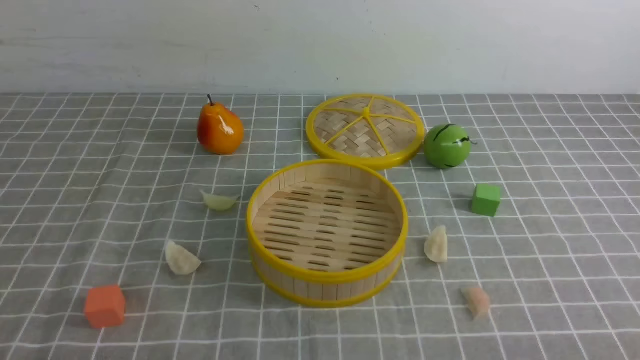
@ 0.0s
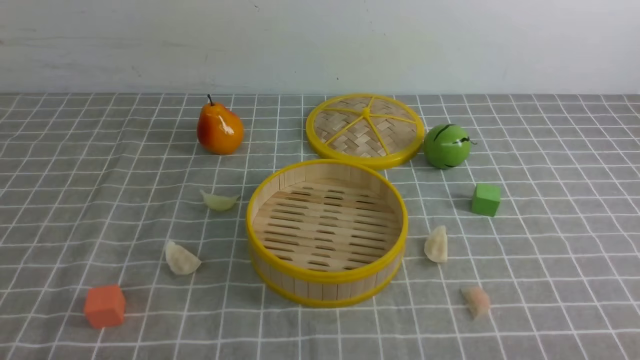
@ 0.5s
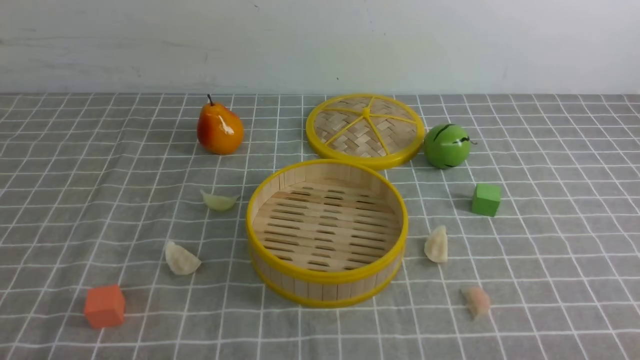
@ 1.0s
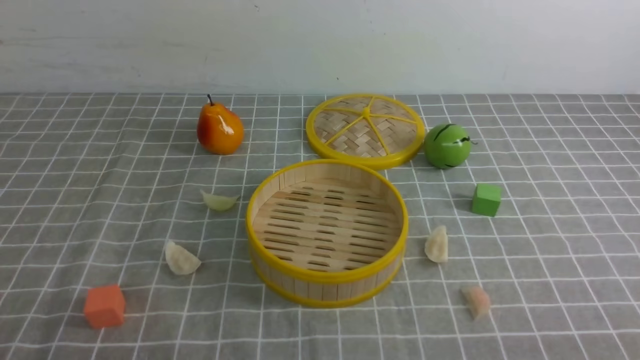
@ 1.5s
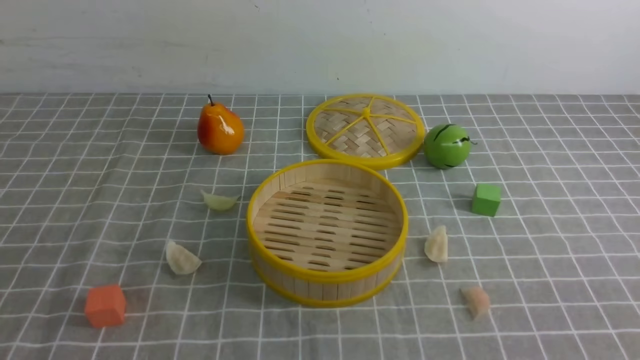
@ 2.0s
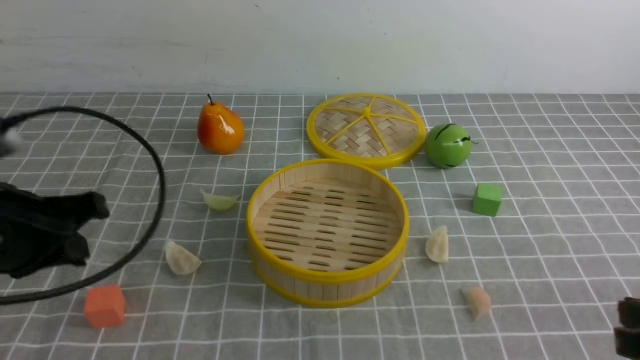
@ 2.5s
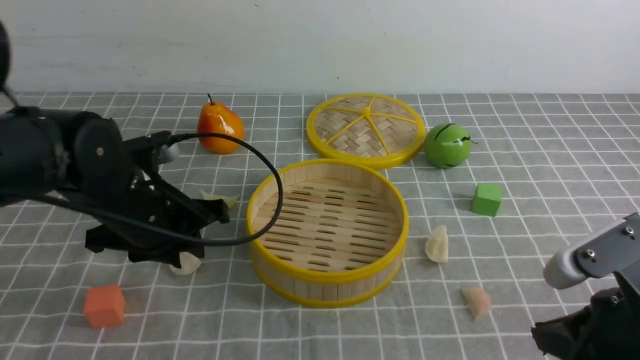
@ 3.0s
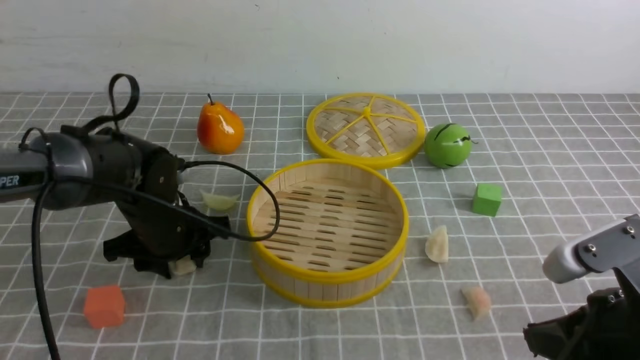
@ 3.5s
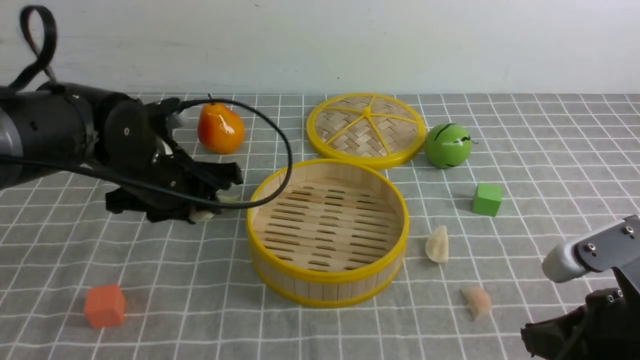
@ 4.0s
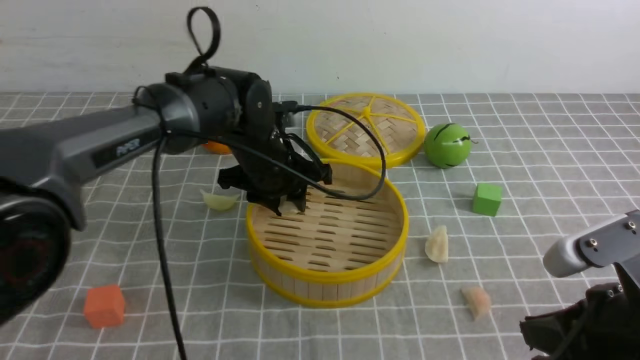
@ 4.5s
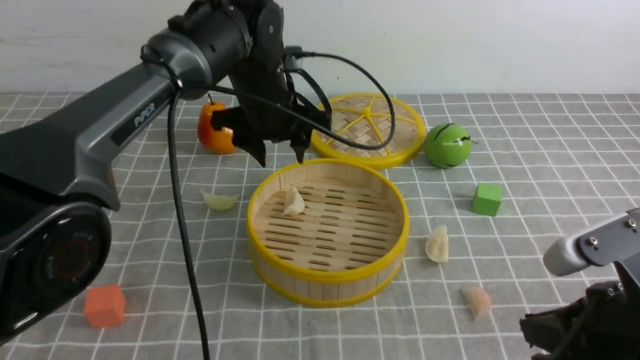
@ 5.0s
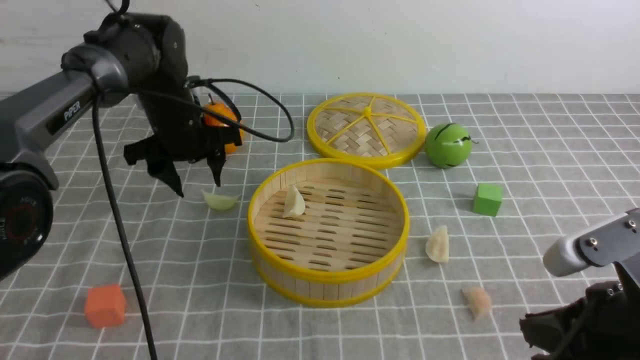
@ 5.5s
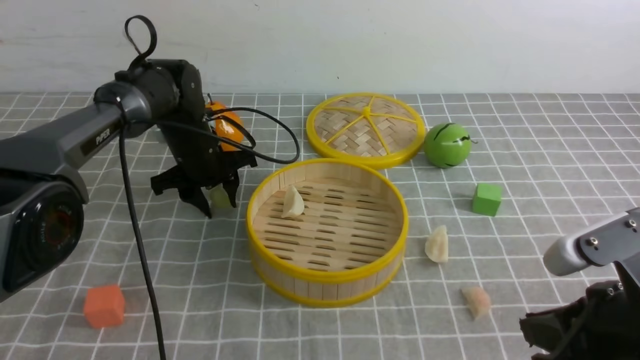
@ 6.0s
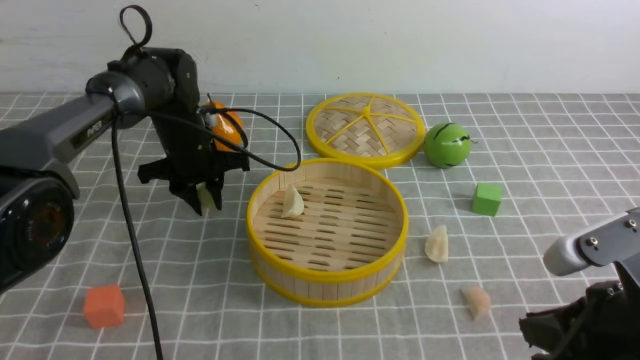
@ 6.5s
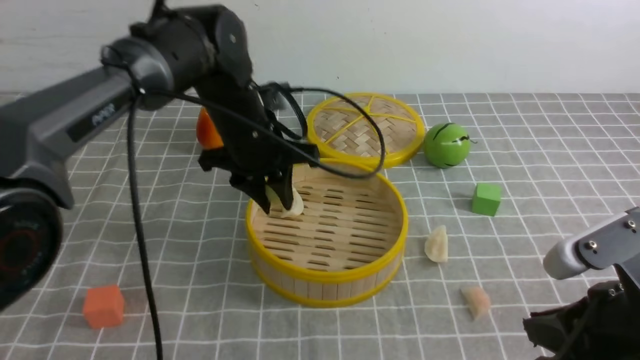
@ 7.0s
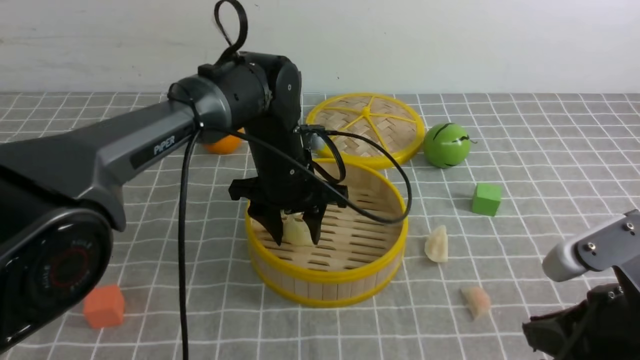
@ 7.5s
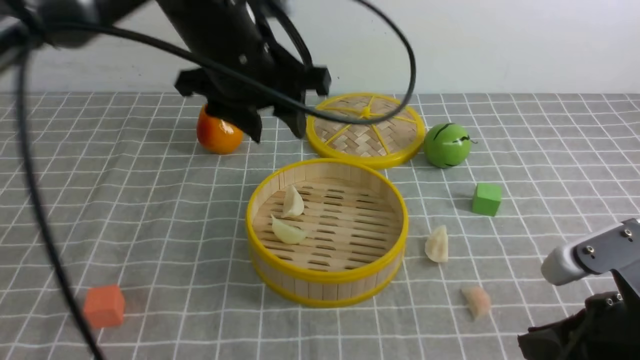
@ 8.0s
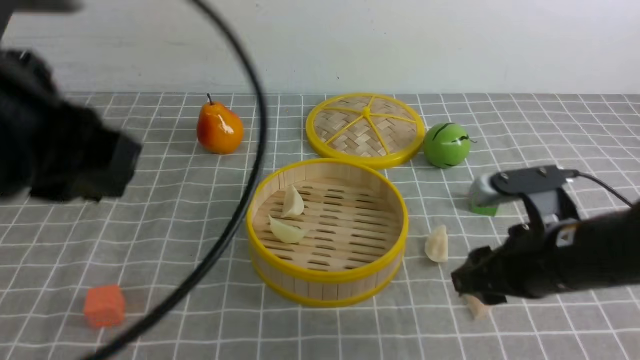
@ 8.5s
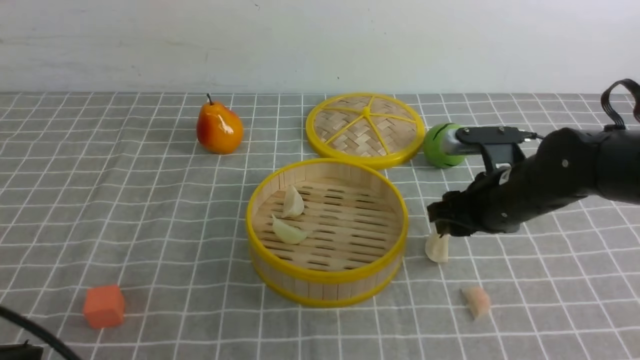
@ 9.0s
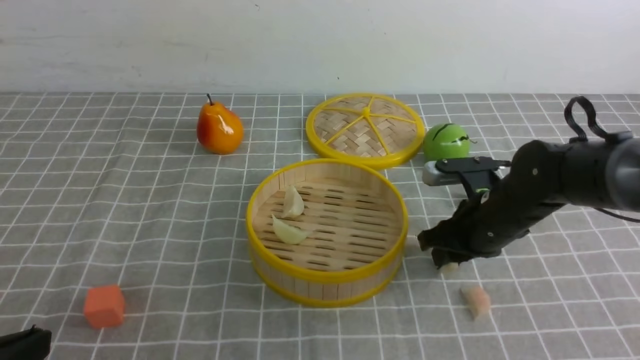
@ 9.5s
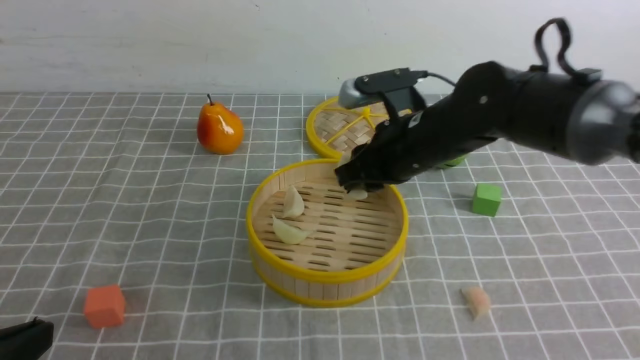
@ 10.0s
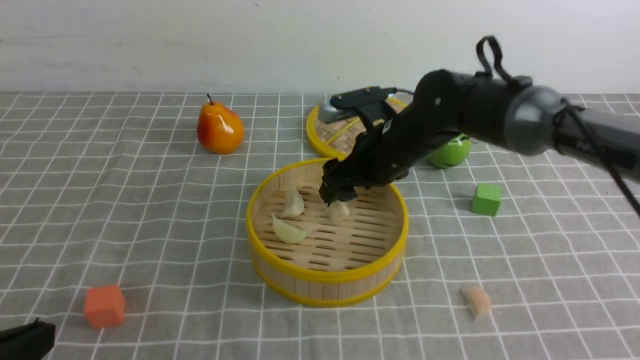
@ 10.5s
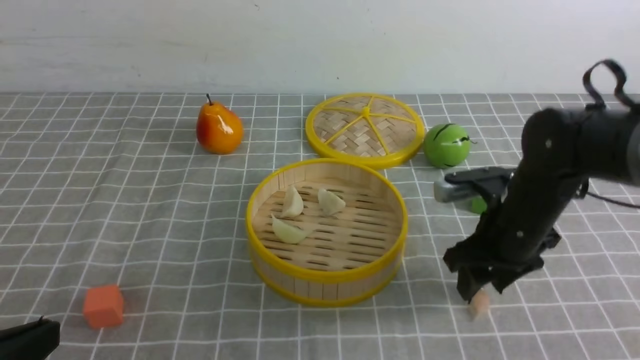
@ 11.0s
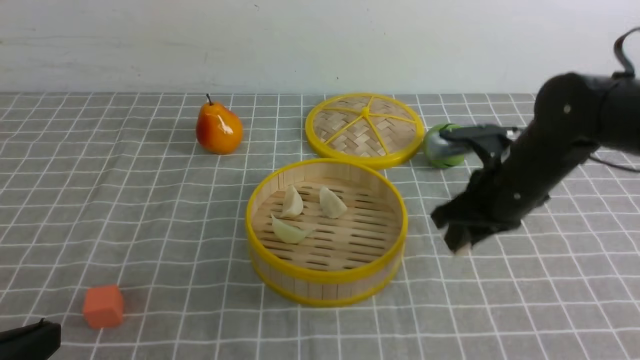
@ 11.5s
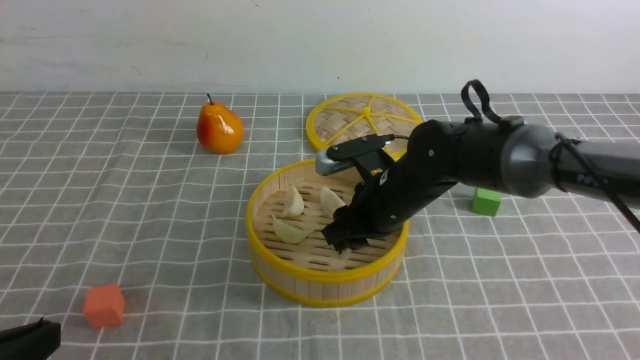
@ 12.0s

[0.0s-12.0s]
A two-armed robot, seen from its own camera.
Task of the whole recording: put the dumplings into the steamer on the table with the grey tablecloth.
Step, 0.0s to 3.5s: use the left arm to grab a dumpling.
Step, 4.0s to 4.5s: use the left arm to put the dumpling into the steamer.
Step, 5.0s to 6.5s: use the left arm to grab a dumpling.
Step, 7.0s to 7.5s: use the left arm to put the dumpling into the steamer.
Step, 8.0s to 9.5s: use the right arm to grab a dumpling.
Step, 10.0s to 10.5s: use the right arm to put the dumpling into the steamer.
2.0s to 4.0s: The right gripper moves forward and to the left, approximately 10 cm; the left gripper heads forward and to the right, covering about 30 cm, and opens up.
4.0s to 6.0s: The left gripper is displaced forward and downward by about 15 cm.
6.0s to 8.0s: The left gripper shifts approximately 25 cm upward and backward.
8.0s to 10.0s: The right gripper shifts approximately 25 cm forward and to the left. The left gripper goes about 35 cm backward, to the left and downward, and closes its fingers.
10.0s to 12.0s: The right gripper goes to the right and returns, about 10 cm each way.

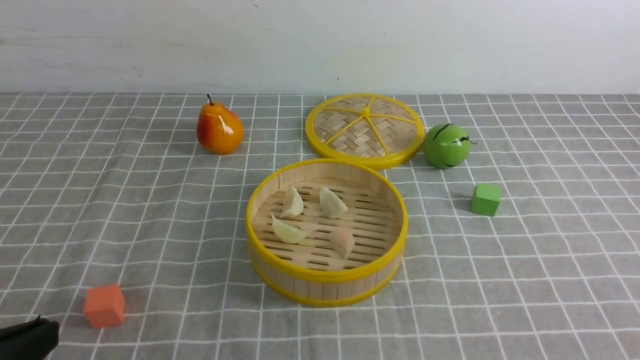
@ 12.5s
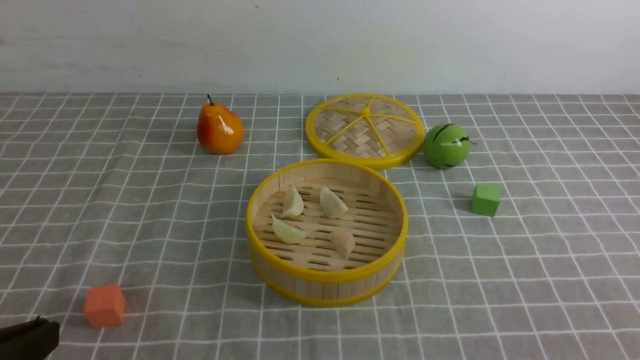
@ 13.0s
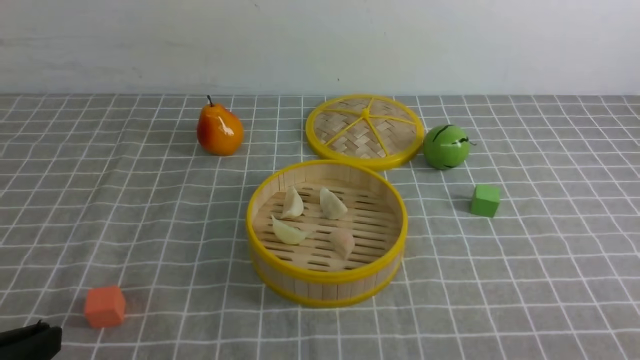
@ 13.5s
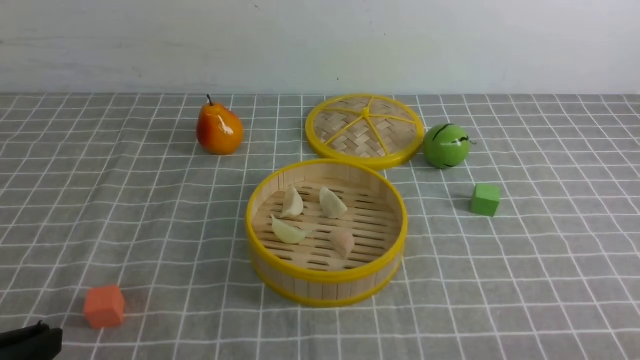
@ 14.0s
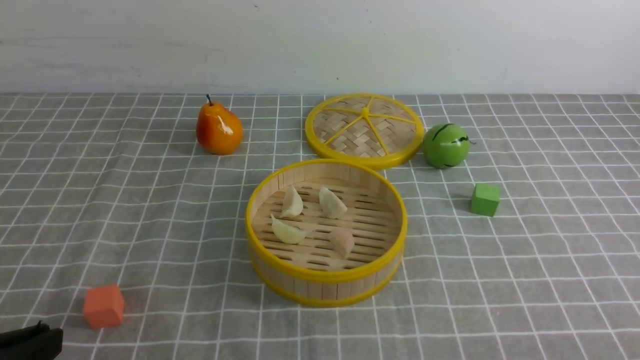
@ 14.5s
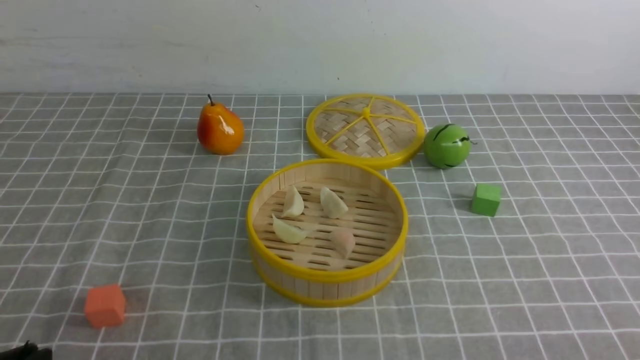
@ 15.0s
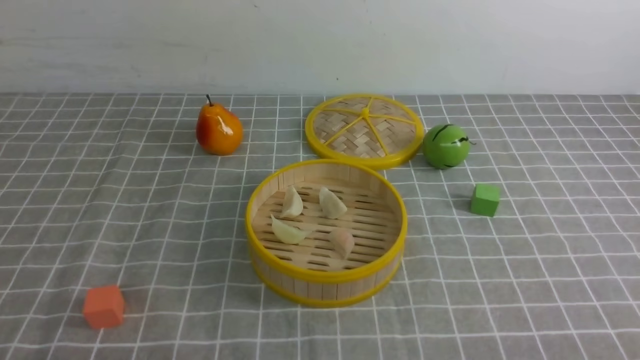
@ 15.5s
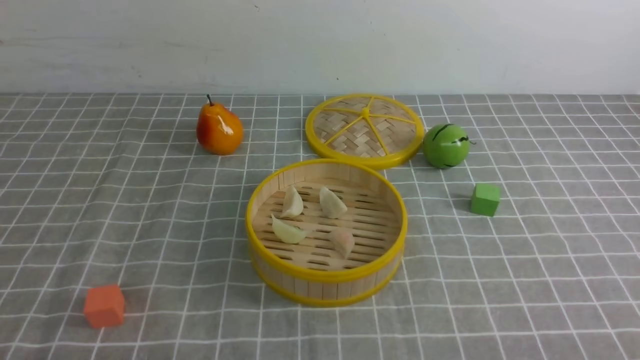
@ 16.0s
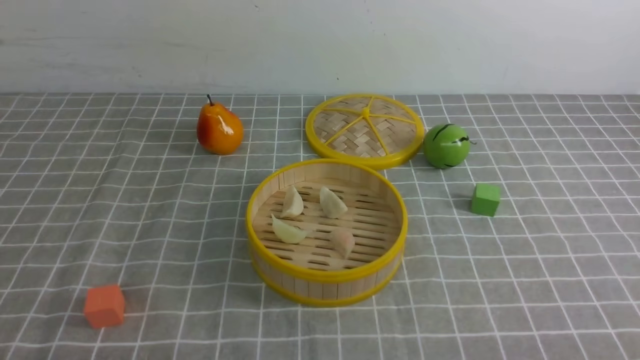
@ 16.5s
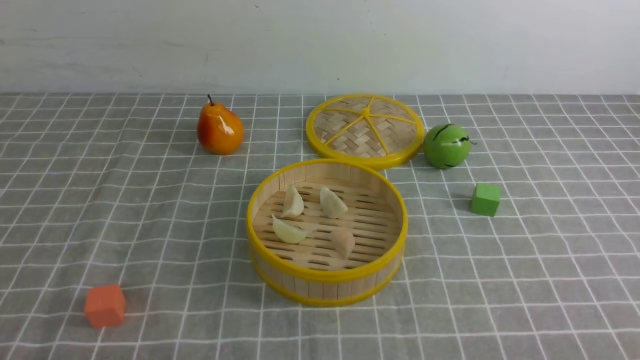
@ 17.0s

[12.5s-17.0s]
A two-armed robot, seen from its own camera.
Task of the whole recording: put the dumplings into the steamer on the table with the grey tablecloth.
14.5s to 17.0s: The left gripper moves downward, some 10 cm.

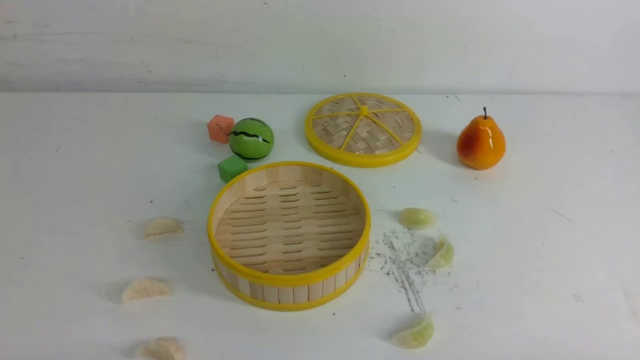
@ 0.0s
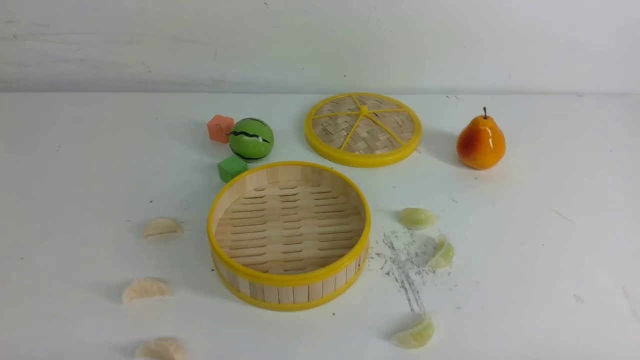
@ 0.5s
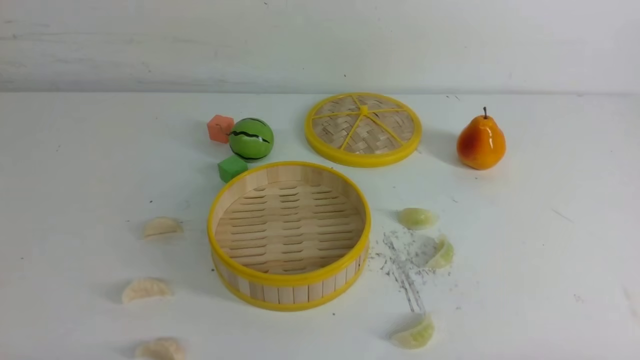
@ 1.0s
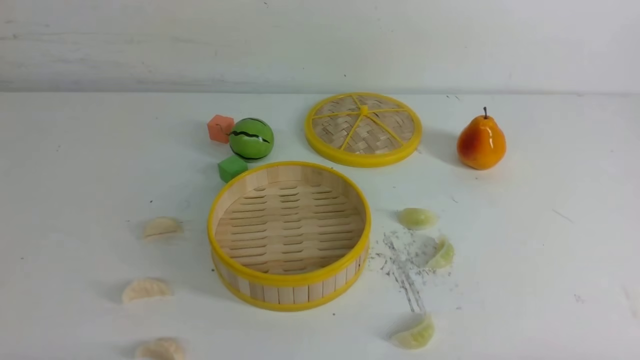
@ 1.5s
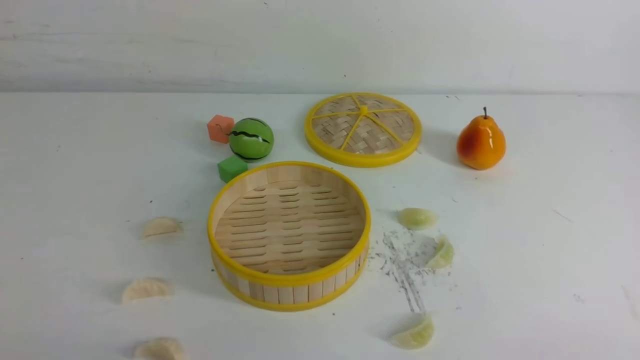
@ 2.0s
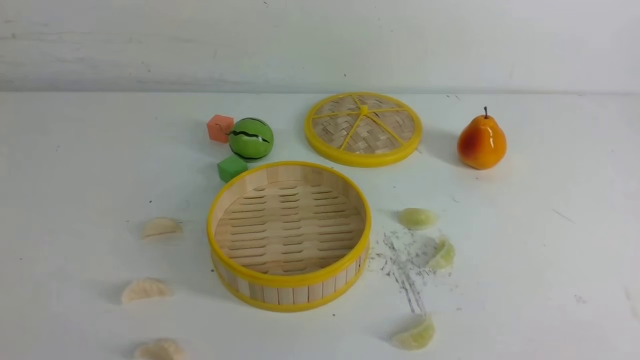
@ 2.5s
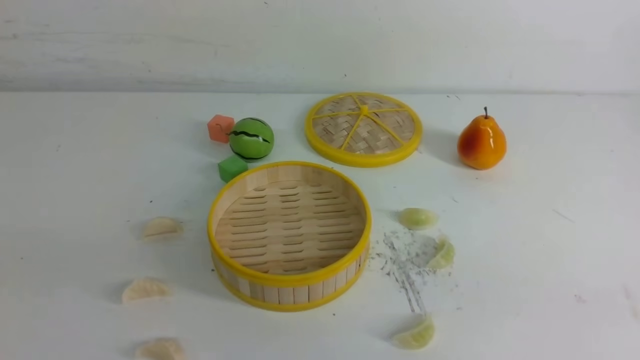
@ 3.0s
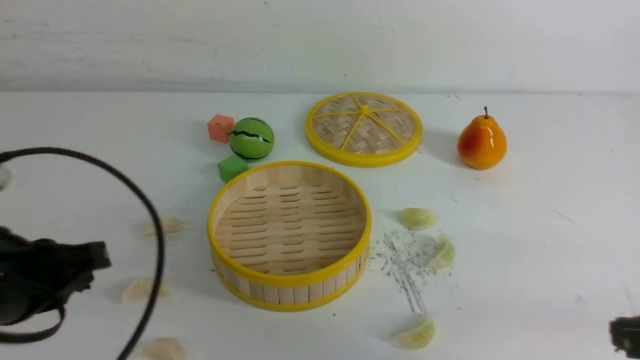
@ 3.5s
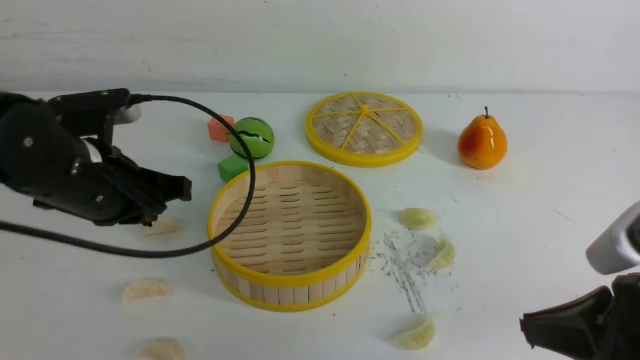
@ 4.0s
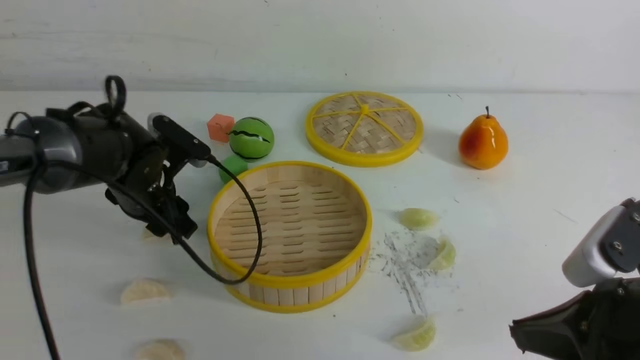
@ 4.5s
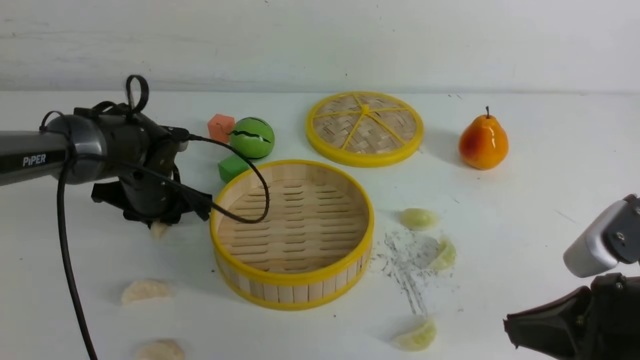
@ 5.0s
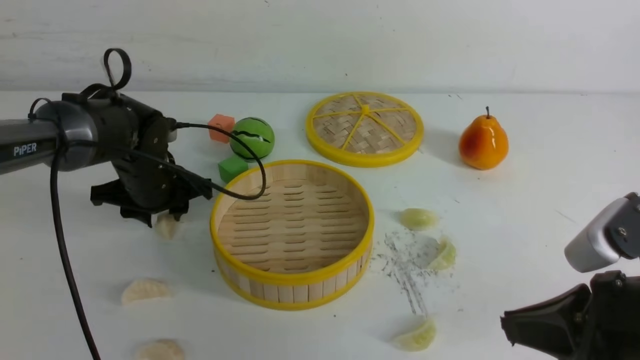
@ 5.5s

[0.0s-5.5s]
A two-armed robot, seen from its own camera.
Task of the whole recording: put the dumplings into the steamer on the white table.
2.0s to 3.5s: The two grippers go some 10 cm forward. The right gripper closes up.
3.5s to 5.5s: The right gripper is displaced to the left by some 5 cm. The left gripper heads forward and downward, covering approximately 25 cm, and opens up.
